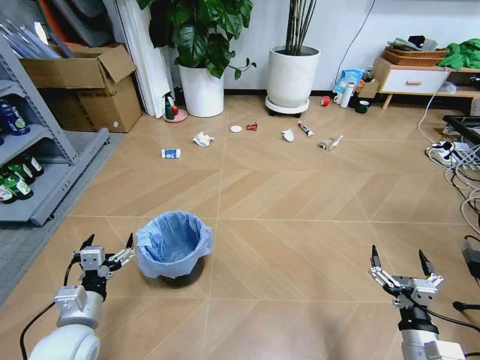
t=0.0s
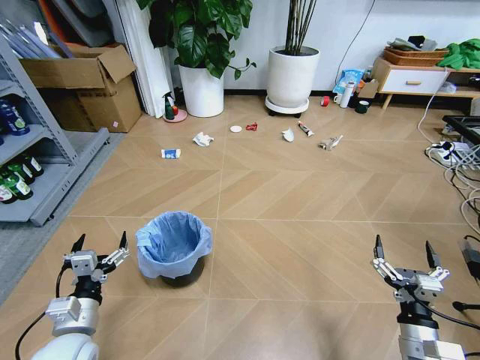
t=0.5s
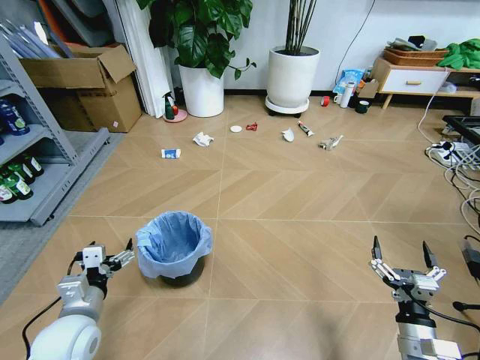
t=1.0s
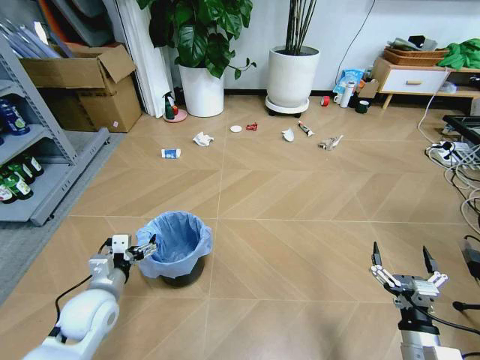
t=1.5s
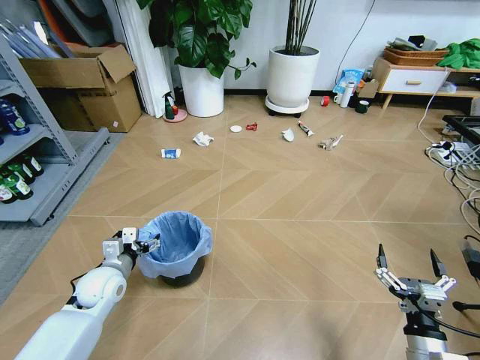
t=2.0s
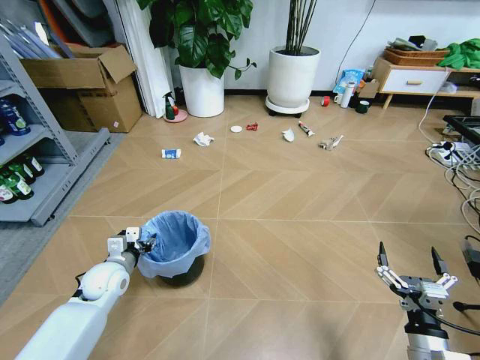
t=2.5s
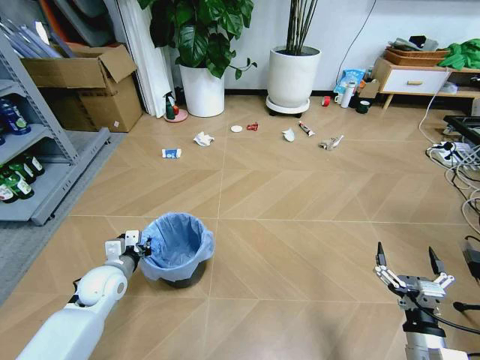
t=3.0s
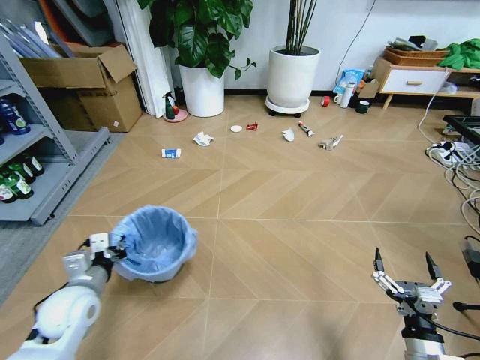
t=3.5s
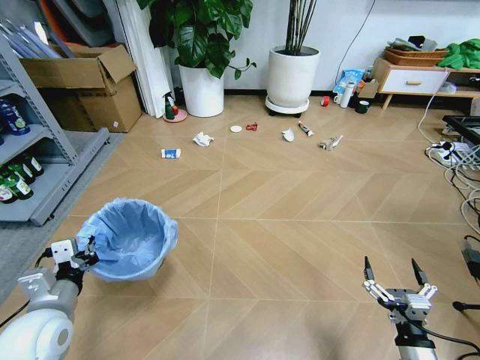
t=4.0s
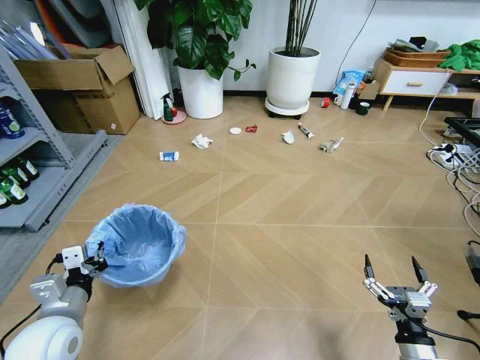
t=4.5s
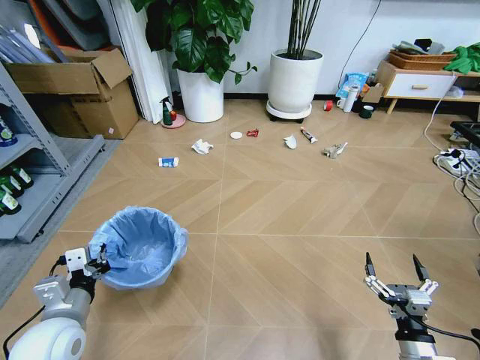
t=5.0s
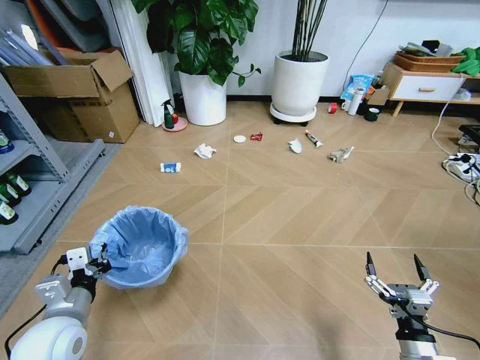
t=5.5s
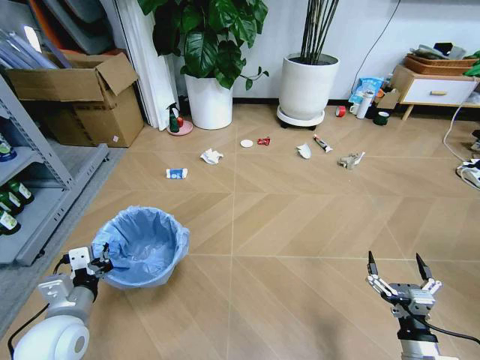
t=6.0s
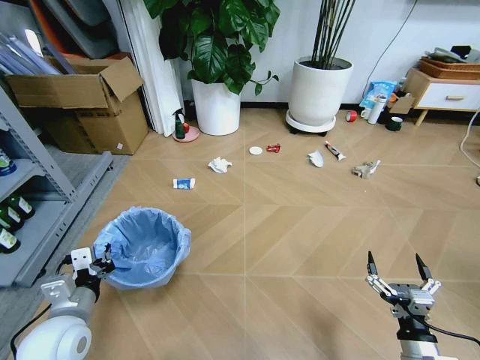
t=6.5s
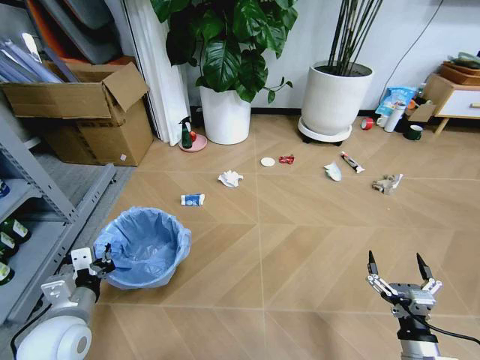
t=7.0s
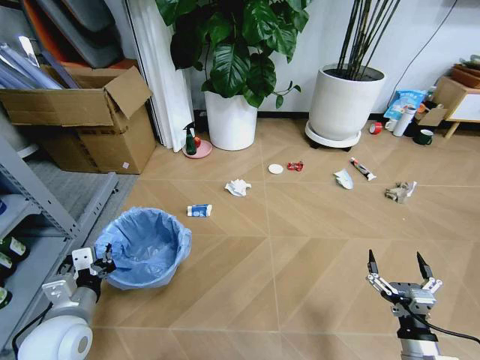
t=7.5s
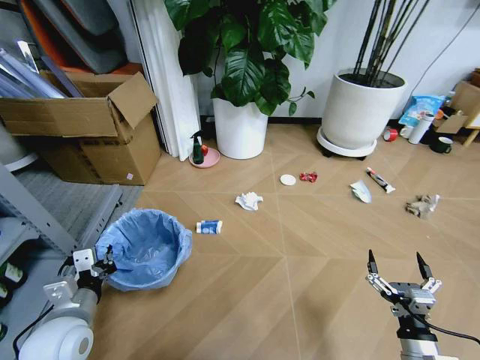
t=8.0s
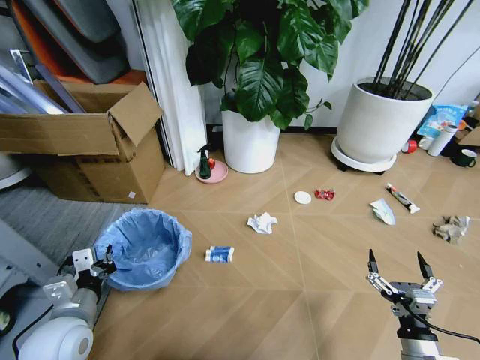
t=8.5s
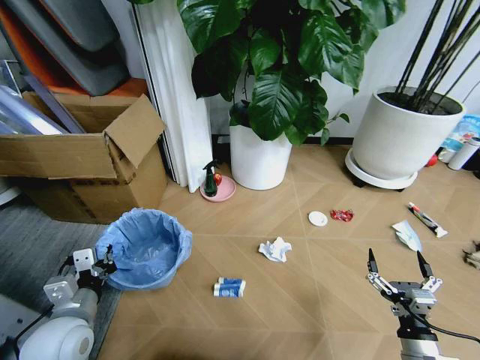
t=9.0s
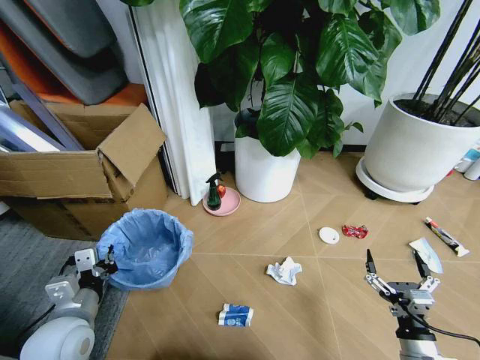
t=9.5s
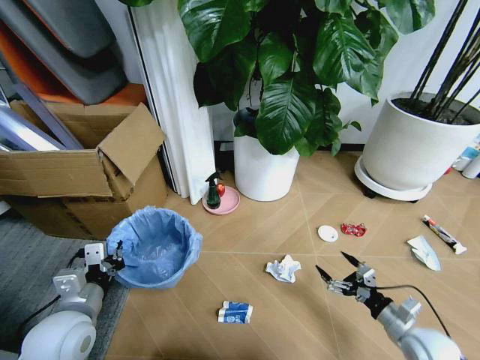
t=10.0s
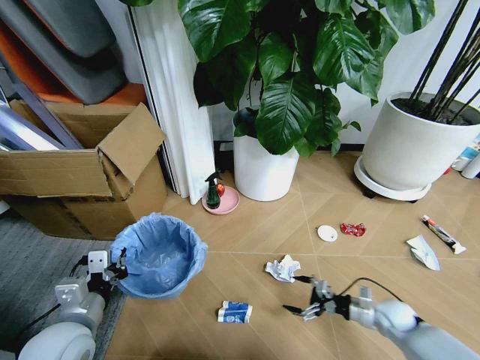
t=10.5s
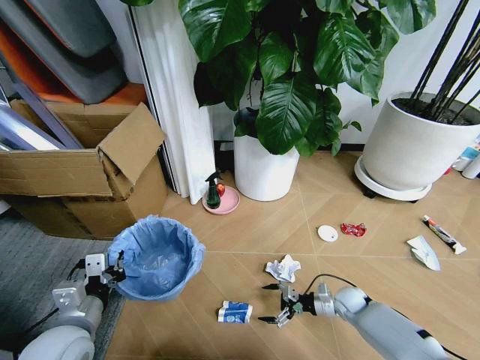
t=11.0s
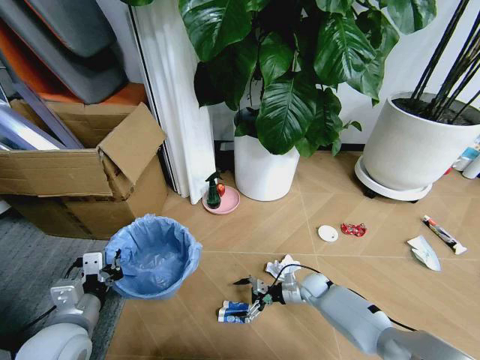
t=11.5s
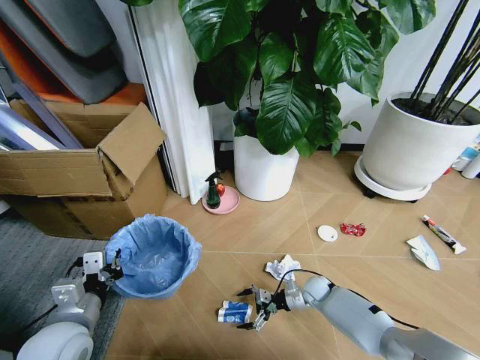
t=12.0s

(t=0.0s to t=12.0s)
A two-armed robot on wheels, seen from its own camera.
Task of the whole recording: Pick up the trash bin and place the garbage on the floor into it.
t=2.0s - t=4.0s: The left gripper goes some 15 cm backward and upward, and closes up.
t=8.0s - t=10.0s: The right gripper shifts by roughly 5 cm.
t=10.0s - t=12.0s: The right gripper heads forward, downward and to the left, covering some 30 cm.

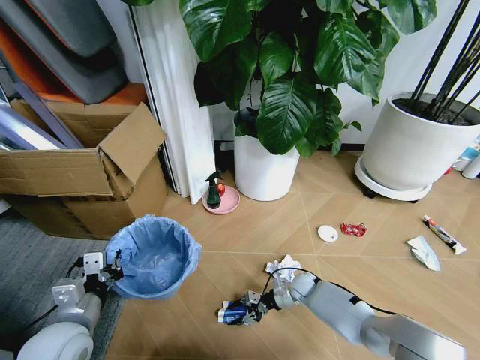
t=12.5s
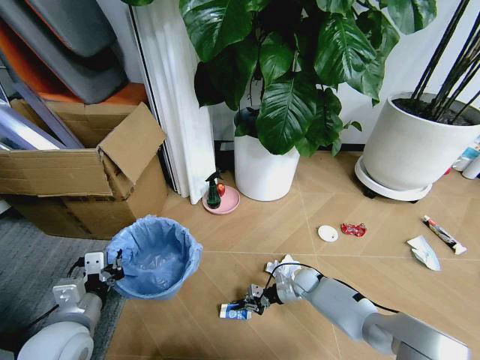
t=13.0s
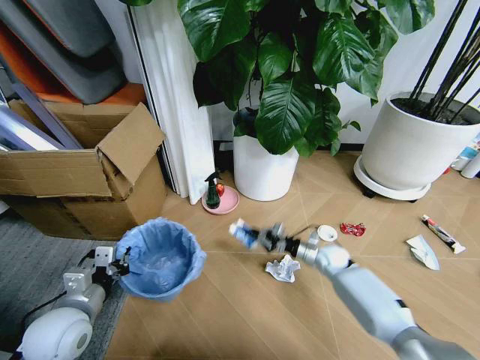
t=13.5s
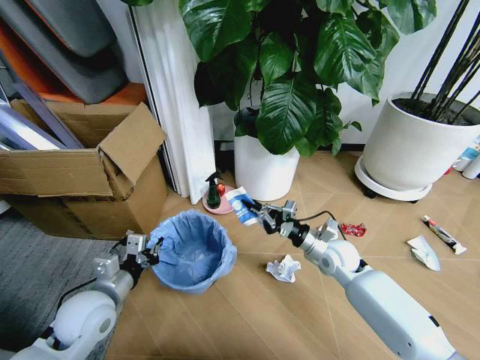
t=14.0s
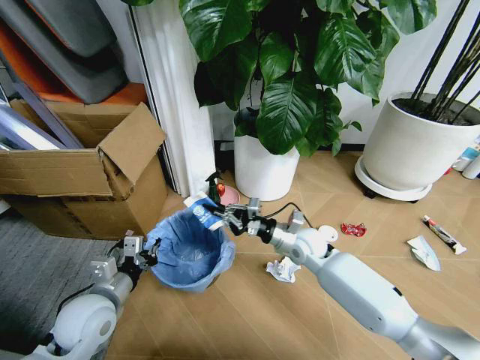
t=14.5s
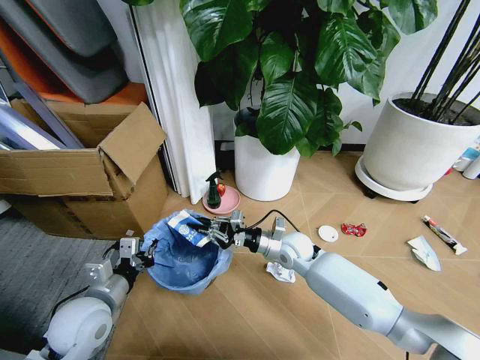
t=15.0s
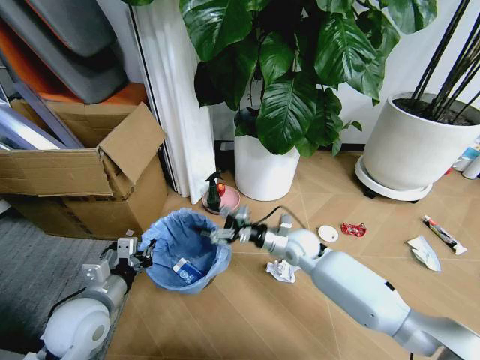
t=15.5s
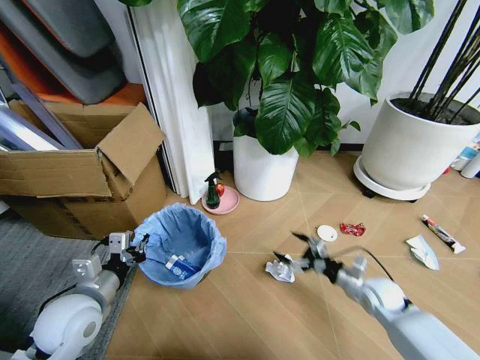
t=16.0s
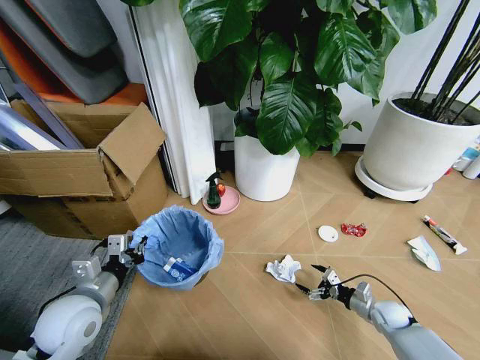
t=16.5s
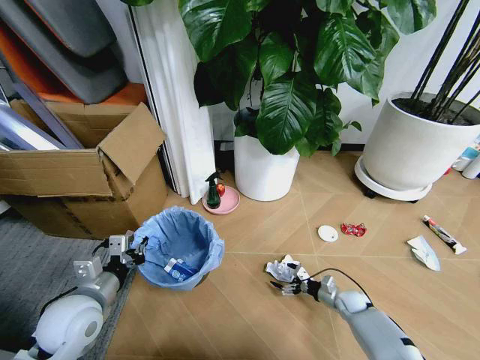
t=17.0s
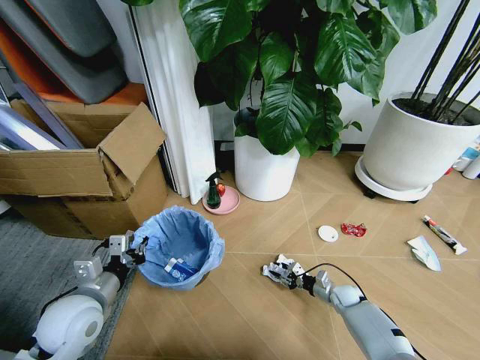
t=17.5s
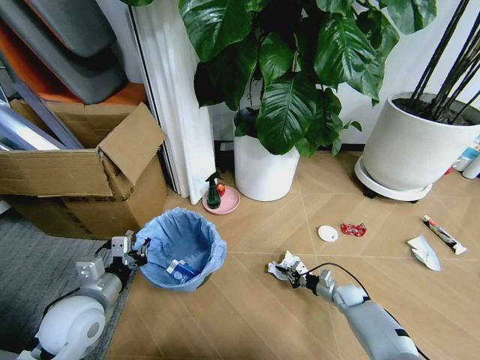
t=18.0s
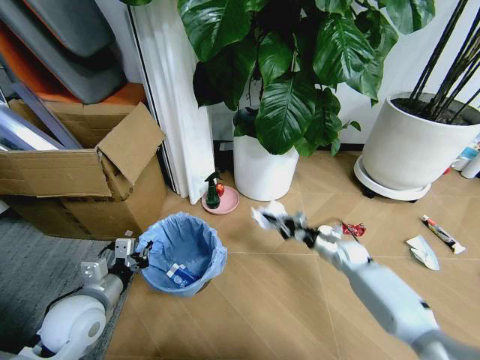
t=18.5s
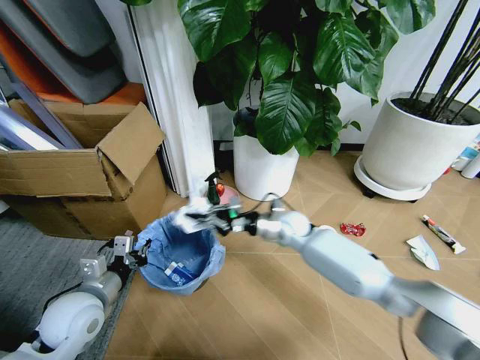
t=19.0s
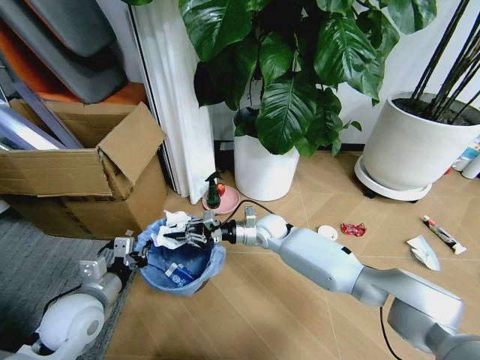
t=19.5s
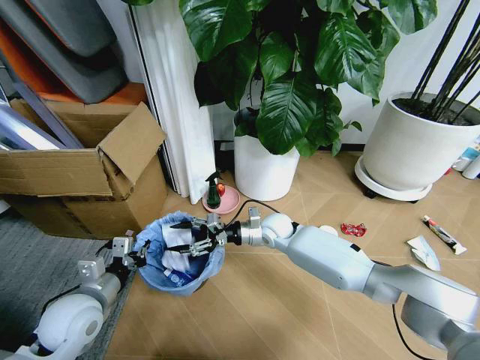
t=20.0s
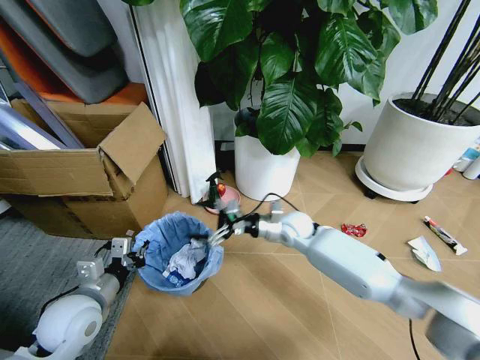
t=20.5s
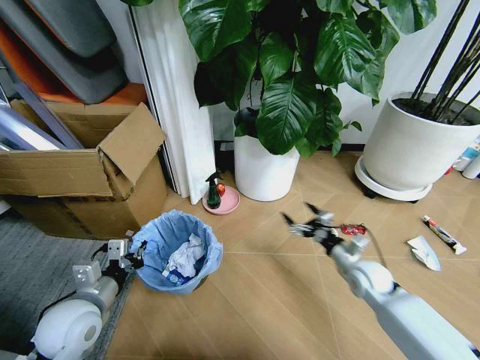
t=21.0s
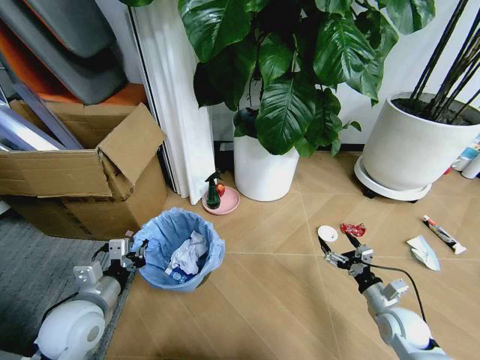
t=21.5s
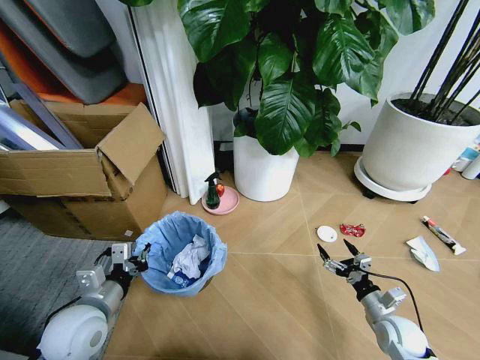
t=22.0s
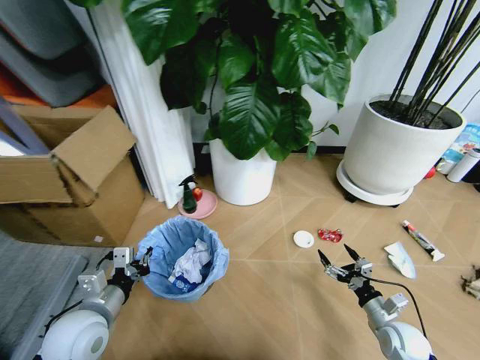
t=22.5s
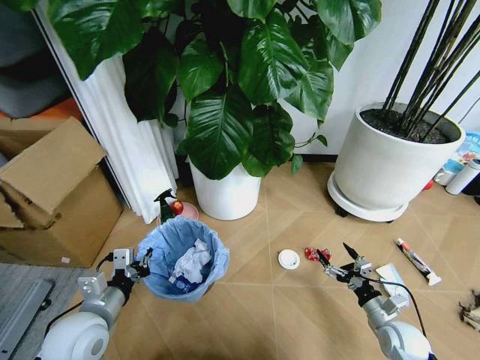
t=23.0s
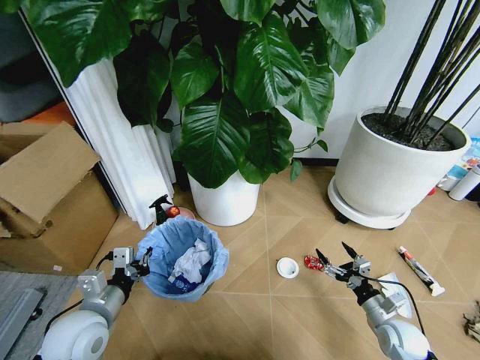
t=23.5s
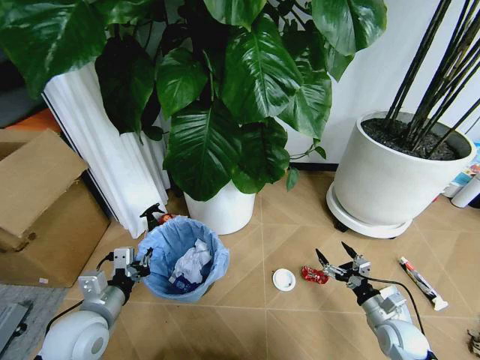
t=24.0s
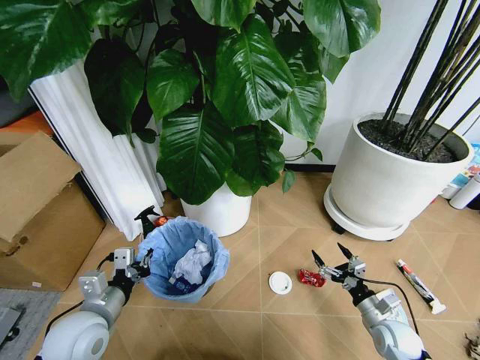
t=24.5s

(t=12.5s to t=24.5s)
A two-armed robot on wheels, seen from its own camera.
Task of the whole recording: Pick up the trash bin and place the garbage on the floor into it.
t=12.5s - t=14.5s: The left gripper shifts about 5 cm forward; the right gripper travels upward by about 25 cm, and closes up.
t=14.5s - t=16.5s: The right gripper heads to the right, downward and backward, covering approximately 35 cm, and opens up.
t=16.5s - t=18.5s: The right gripper is displaced forward, upward and to the left by approximately 20 cm, and closes.
t=18.5s - t=20.5s: The right gripper heads to the left and upward, covering about 20 cm, and opens up.
t=20.5s - t=22.5s: The right gripper goes roughly 35 cm backward, to the right and downward.

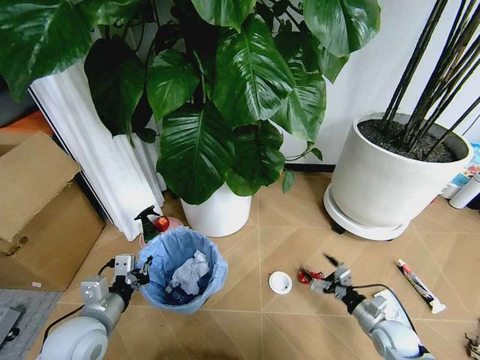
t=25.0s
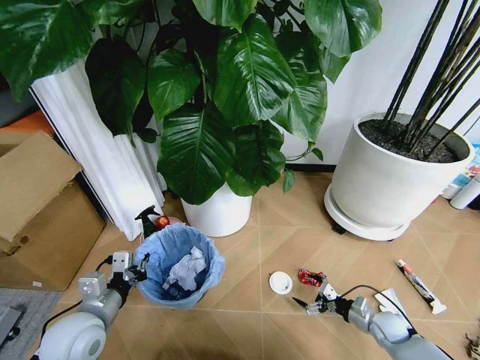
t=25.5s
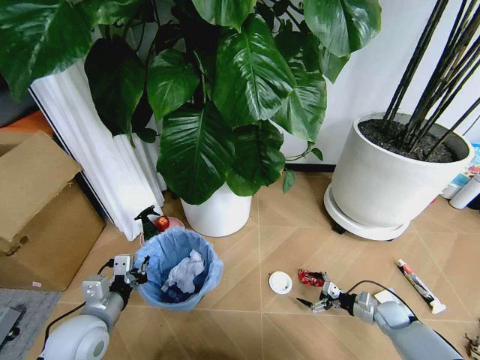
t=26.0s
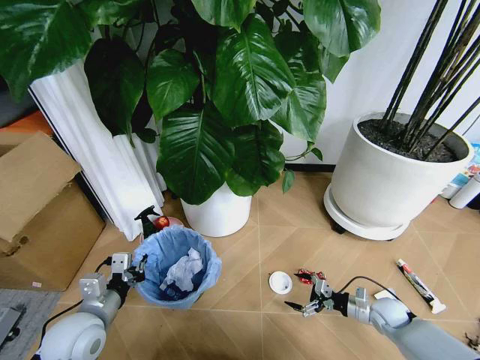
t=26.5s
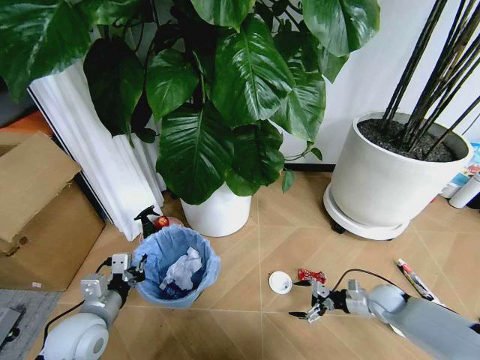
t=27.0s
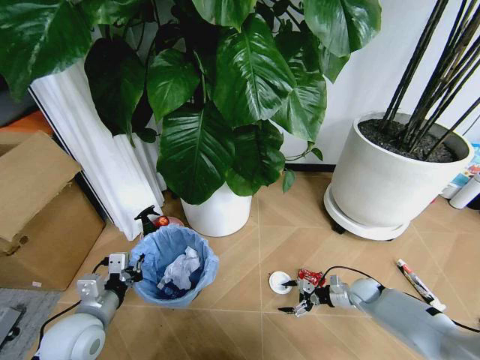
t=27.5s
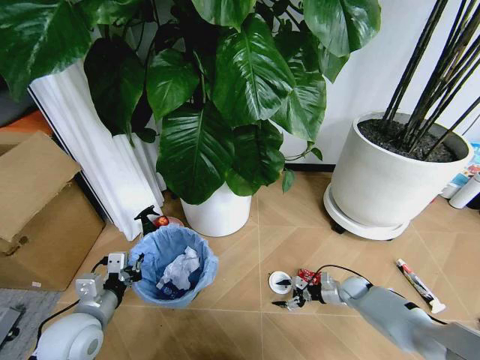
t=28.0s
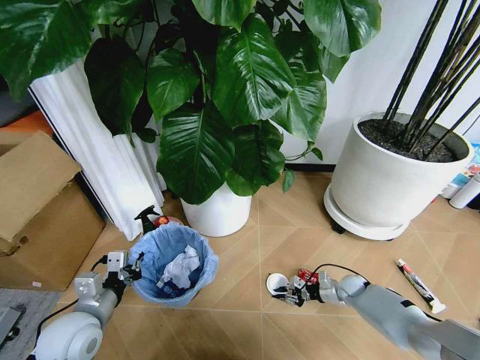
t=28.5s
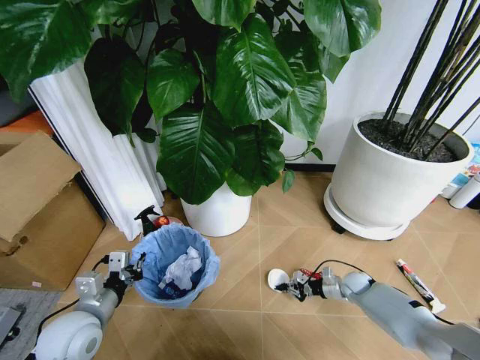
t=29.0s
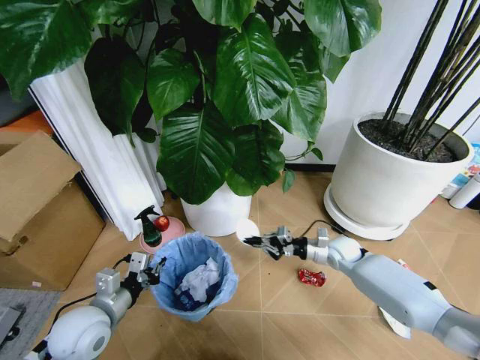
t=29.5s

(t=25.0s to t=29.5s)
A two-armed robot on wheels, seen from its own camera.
Task of the whole recording: Pick up the trash bin and place the garbage on the floor into it.
t=25.0s - t=27.0s: The right gripper moves forward, roughly 10 cm.
t=27.0s - t=29.5s: The right gripper moves to the left, forward and upward, some 20 cm, and closes its fingers.
